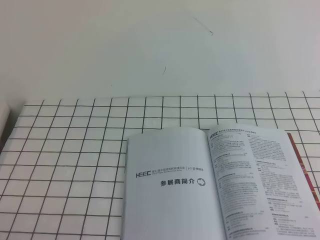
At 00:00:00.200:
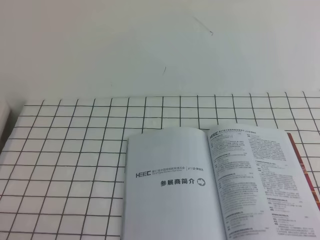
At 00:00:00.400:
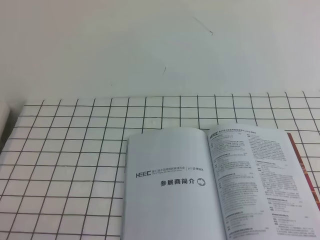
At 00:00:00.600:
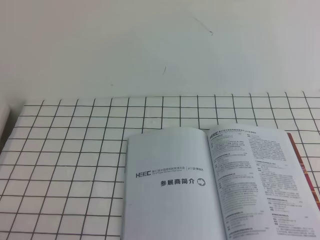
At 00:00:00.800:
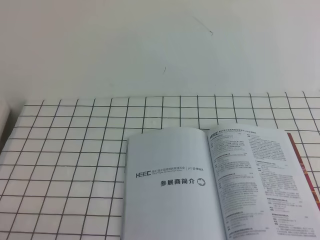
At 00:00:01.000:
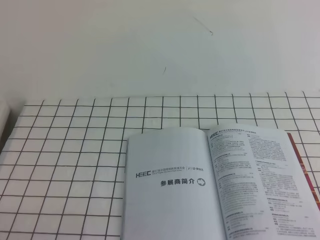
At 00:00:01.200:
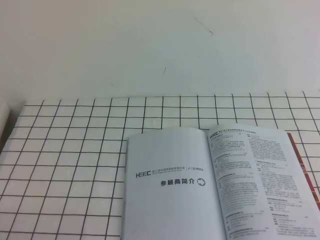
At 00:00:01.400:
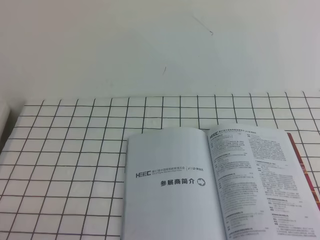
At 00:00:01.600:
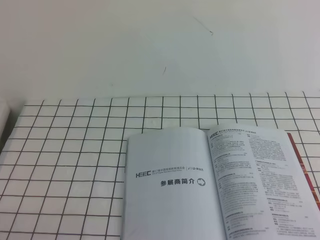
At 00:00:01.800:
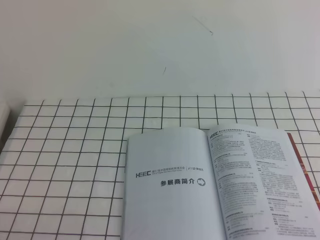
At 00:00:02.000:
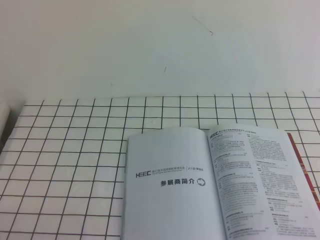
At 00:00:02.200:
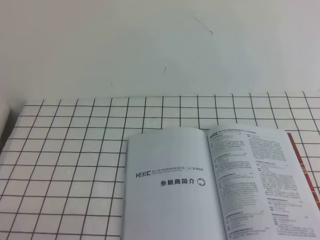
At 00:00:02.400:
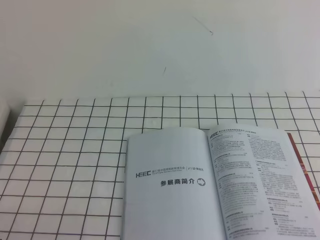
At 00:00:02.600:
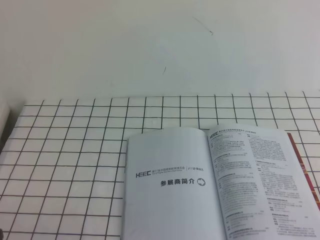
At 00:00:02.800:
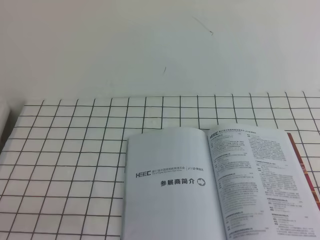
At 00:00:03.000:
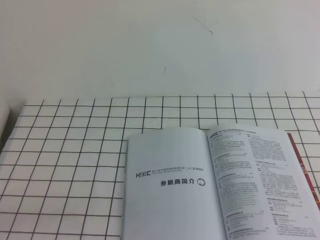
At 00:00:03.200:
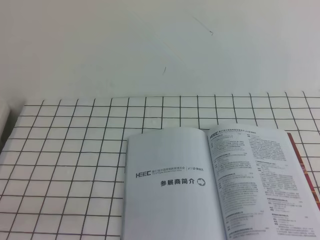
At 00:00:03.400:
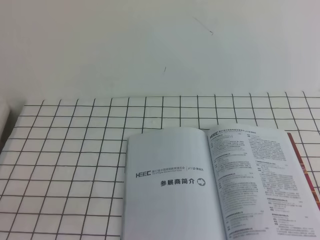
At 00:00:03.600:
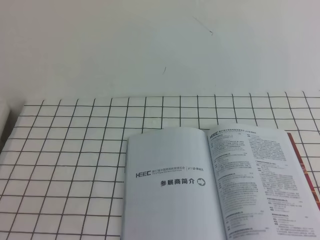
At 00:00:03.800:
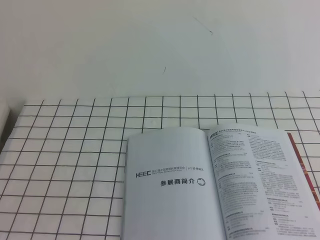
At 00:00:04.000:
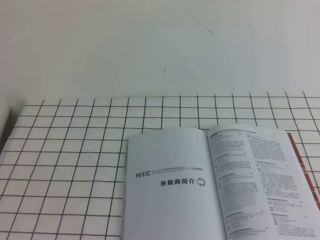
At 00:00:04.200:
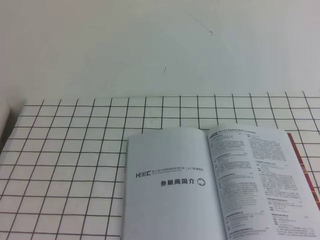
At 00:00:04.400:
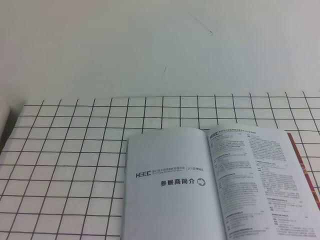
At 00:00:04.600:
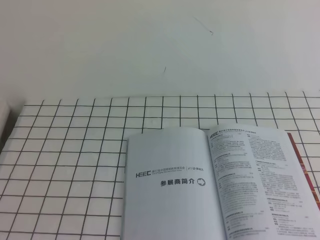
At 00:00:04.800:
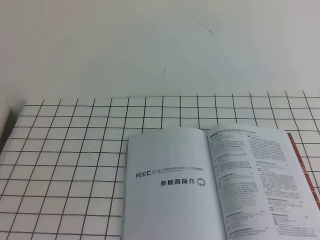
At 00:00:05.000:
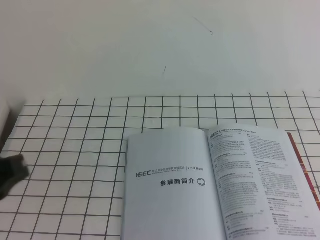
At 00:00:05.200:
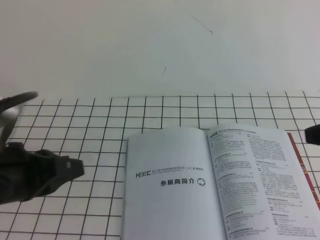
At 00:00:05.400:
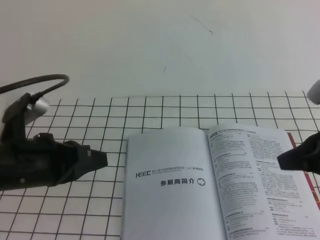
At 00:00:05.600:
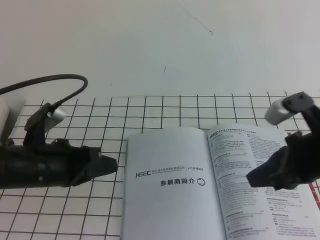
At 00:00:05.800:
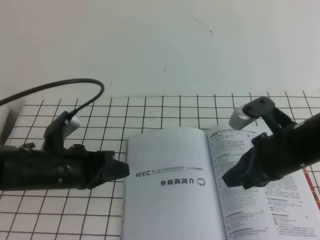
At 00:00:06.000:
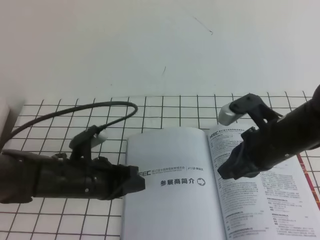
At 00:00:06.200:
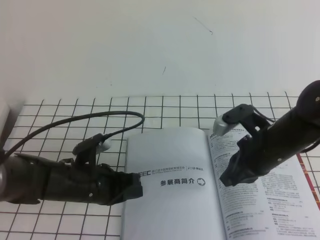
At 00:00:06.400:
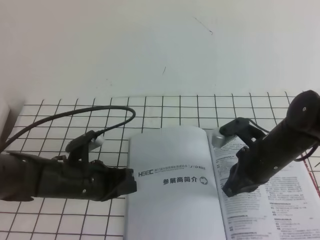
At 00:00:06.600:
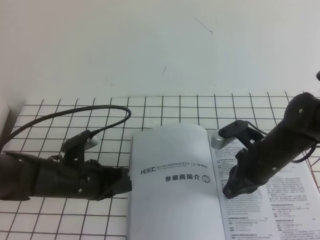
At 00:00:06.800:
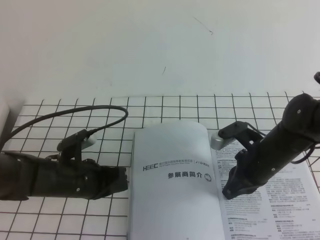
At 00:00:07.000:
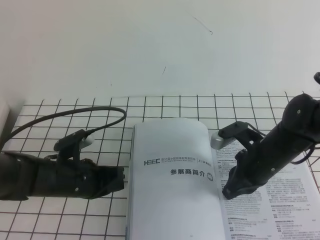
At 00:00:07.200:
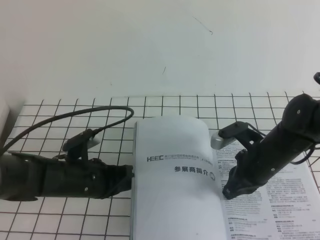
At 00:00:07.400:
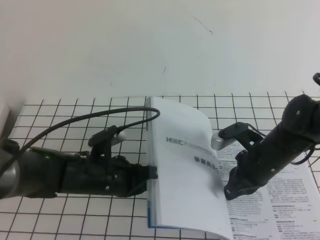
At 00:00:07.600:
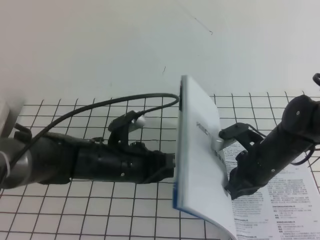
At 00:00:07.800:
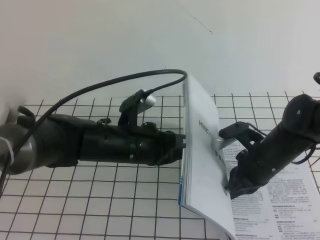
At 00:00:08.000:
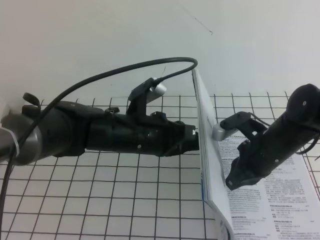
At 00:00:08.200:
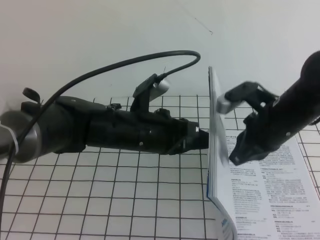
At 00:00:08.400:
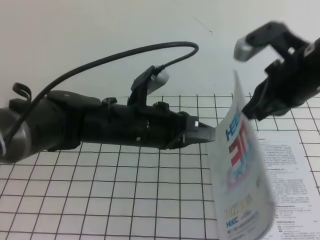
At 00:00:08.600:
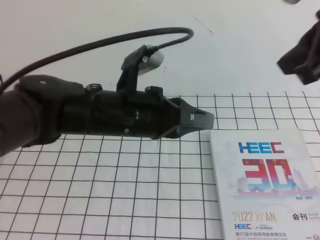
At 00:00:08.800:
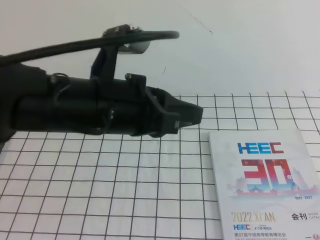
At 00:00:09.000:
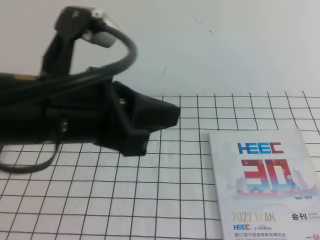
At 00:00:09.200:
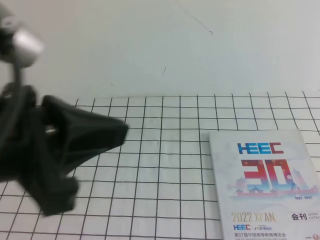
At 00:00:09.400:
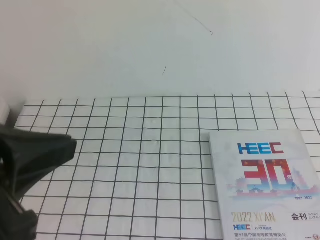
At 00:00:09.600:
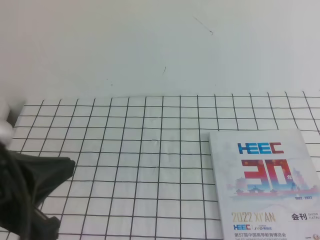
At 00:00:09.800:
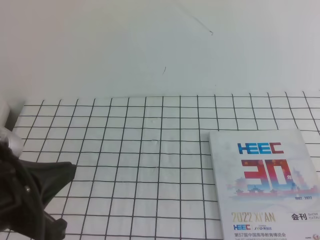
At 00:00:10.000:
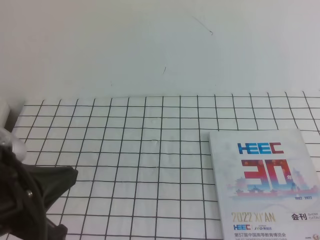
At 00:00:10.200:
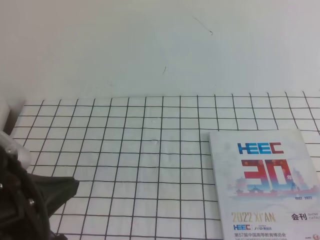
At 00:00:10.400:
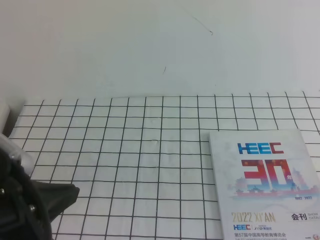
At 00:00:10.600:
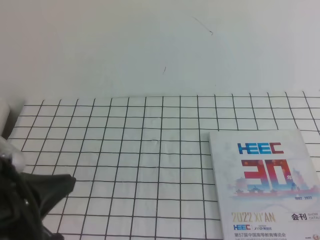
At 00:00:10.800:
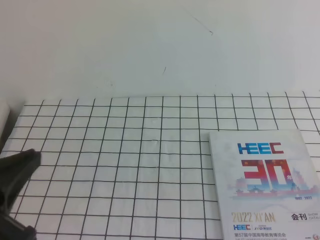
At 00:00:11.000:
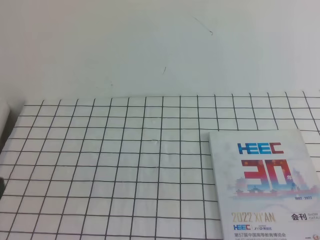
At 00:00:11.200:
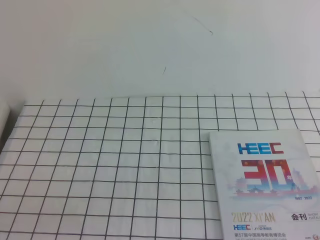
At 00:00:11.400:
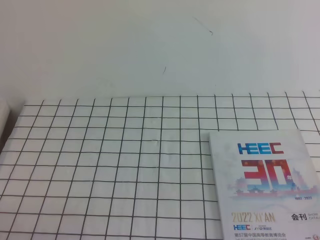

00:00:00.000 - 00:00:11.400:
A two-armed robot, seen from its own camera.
Task of the whole recording: on the white tablecloth, hold the book with one hand and close it with the other.
00:00:00.000 - 00:00:01.400: The two grippers keep their place.
00:00:04.200 - 00:00:05.600: The right gripper shifts about 35 cm forward, downward and to the left. The left gripper heads forward and downward, covering some 35 cm.
00:00:05.600 - 00:00:07.200: The left gripper travels downward by about 10 cm; the right gripper travels downward, forward and to the left by some 15 cm.
00:00:07.200 - 00:00:08.600: The right gripper heads upward, covering some 25 cm, while the left gripper shifts roughly 20 cm upward and to the right.
00:00:08.600 - 00:00:10.000: The left gripper heads backward and to the left, covering roughly 20 cm. The right gripper moves backward, downward and to the right, approximately 25 cm.
00:00:10.000 - 00:00:11.400: The left gripper heads downward, to the left and backward, covering about 15 cm.
